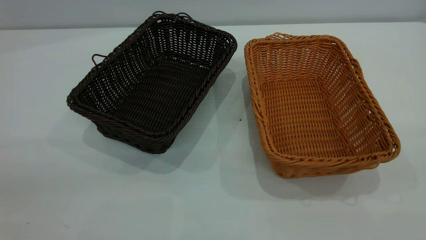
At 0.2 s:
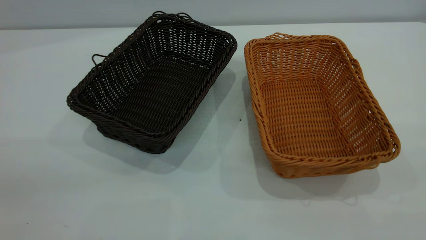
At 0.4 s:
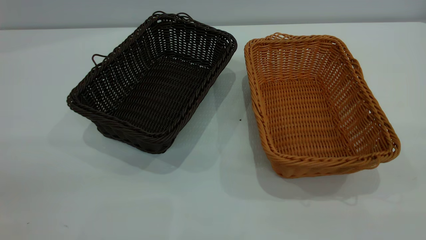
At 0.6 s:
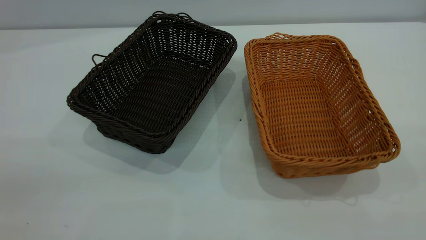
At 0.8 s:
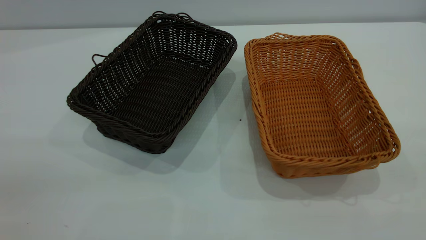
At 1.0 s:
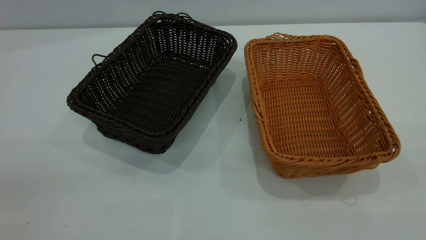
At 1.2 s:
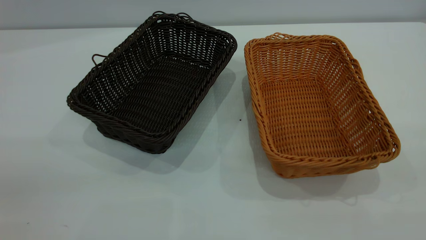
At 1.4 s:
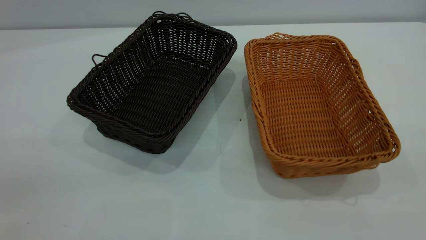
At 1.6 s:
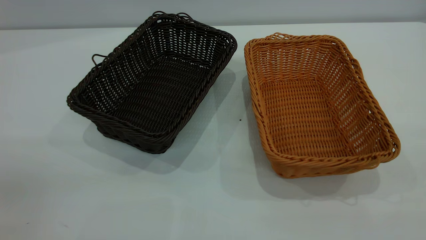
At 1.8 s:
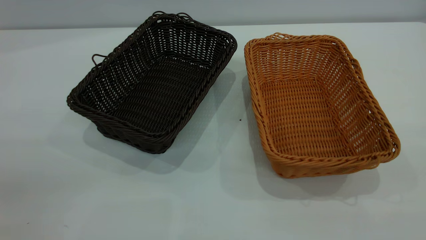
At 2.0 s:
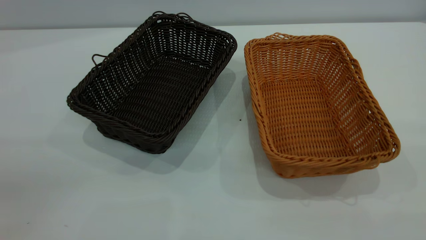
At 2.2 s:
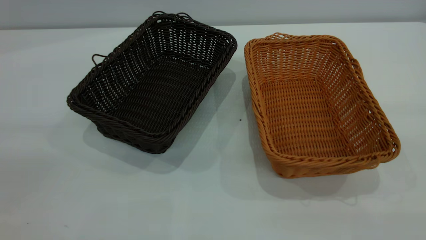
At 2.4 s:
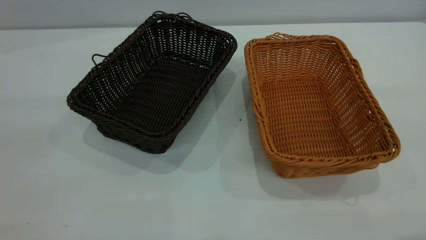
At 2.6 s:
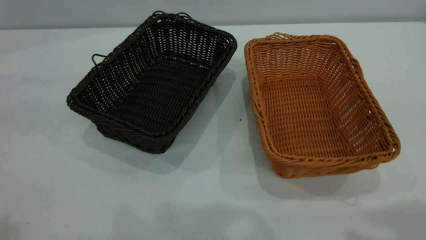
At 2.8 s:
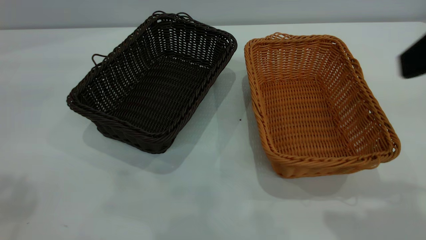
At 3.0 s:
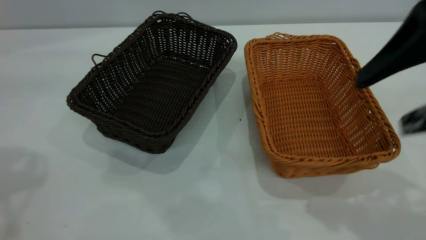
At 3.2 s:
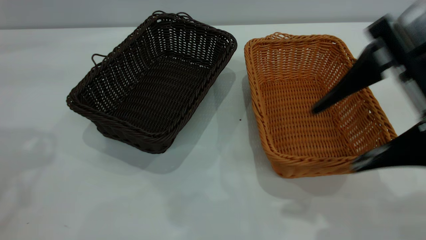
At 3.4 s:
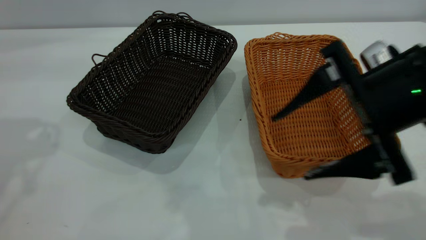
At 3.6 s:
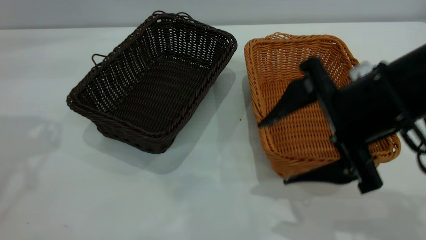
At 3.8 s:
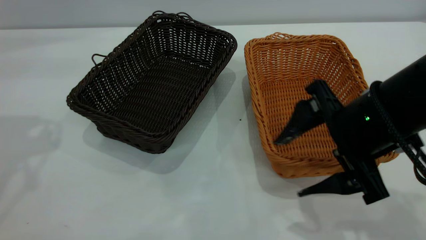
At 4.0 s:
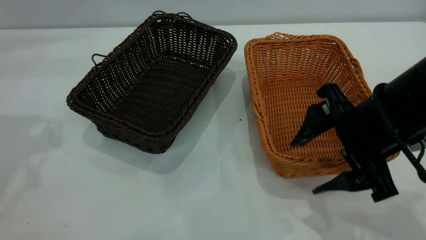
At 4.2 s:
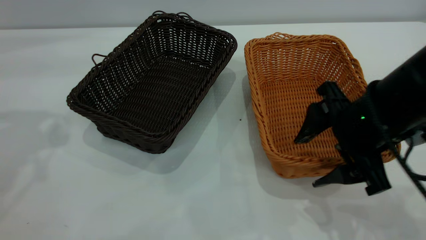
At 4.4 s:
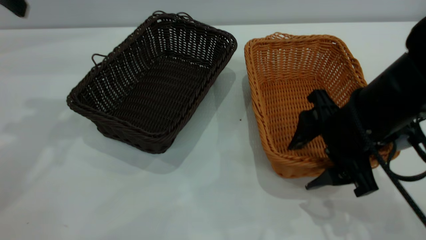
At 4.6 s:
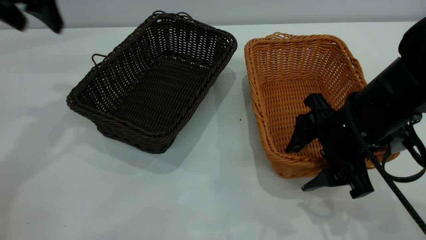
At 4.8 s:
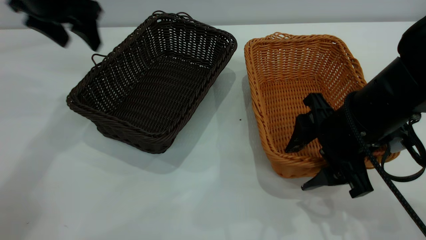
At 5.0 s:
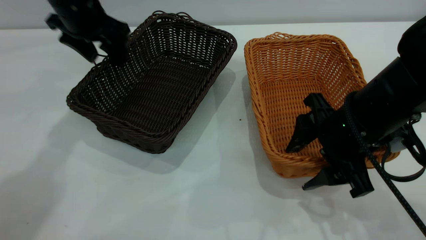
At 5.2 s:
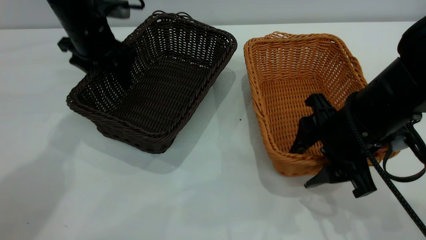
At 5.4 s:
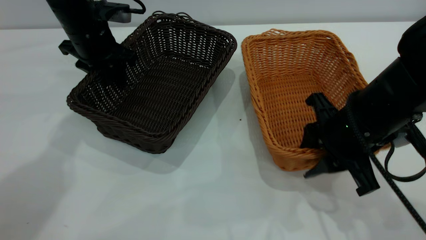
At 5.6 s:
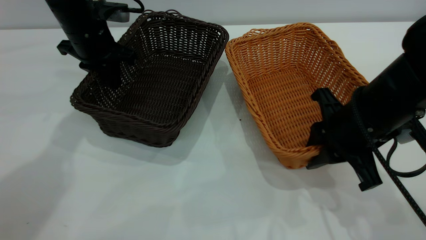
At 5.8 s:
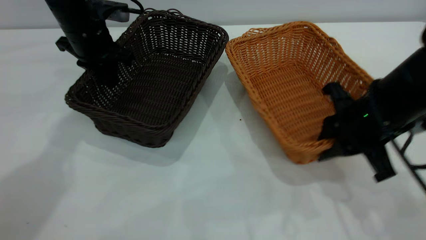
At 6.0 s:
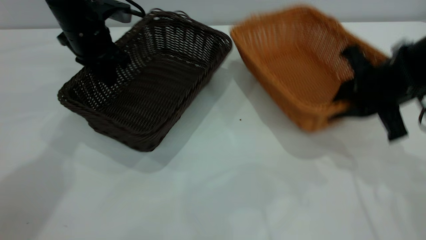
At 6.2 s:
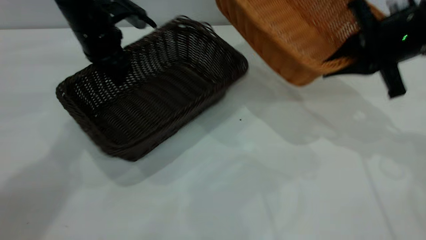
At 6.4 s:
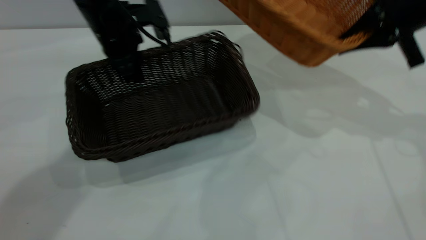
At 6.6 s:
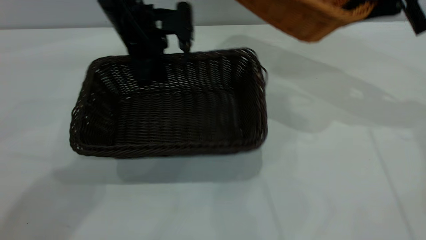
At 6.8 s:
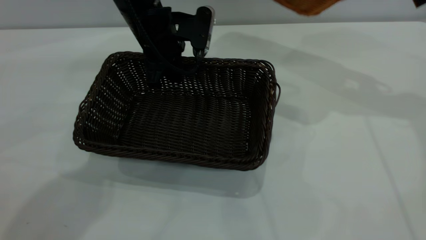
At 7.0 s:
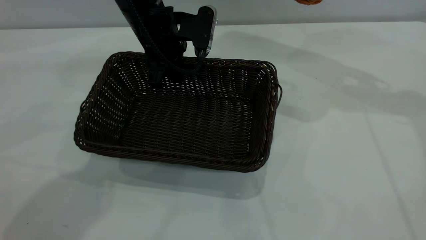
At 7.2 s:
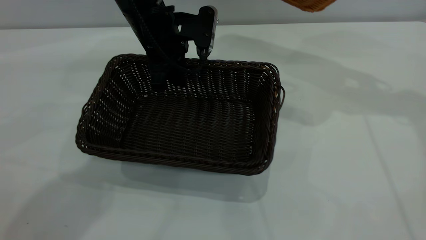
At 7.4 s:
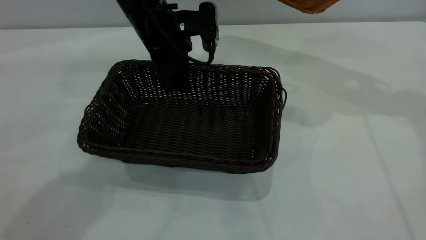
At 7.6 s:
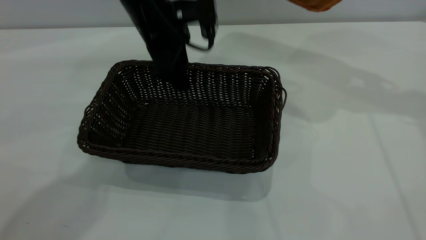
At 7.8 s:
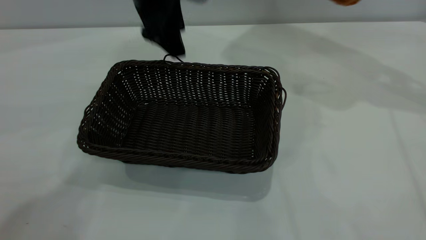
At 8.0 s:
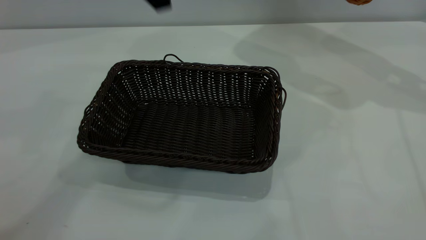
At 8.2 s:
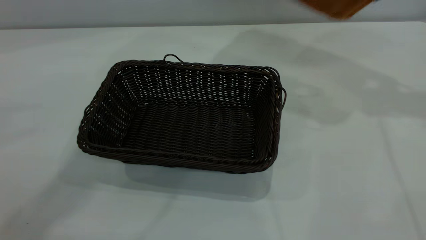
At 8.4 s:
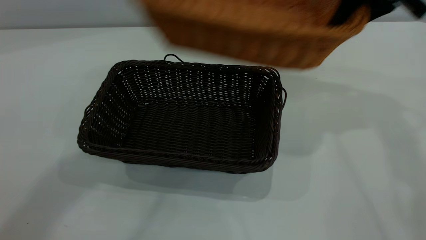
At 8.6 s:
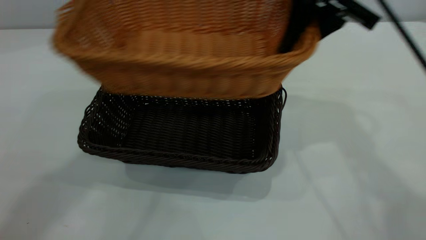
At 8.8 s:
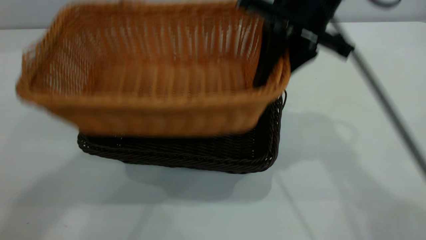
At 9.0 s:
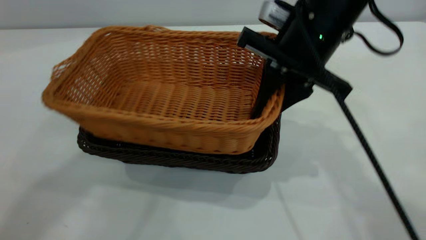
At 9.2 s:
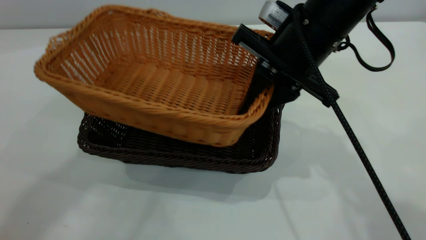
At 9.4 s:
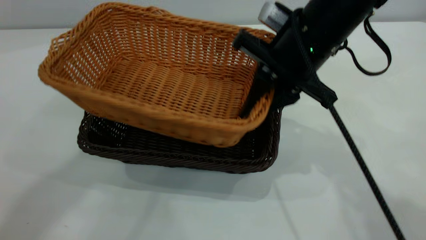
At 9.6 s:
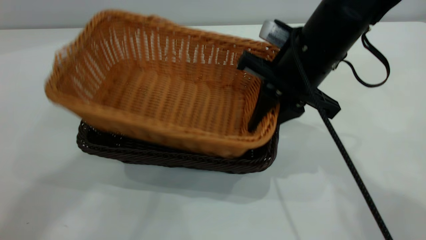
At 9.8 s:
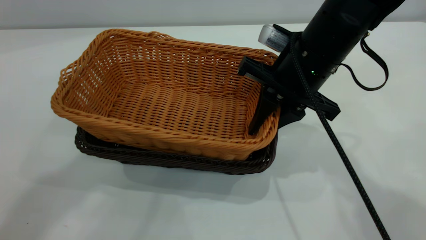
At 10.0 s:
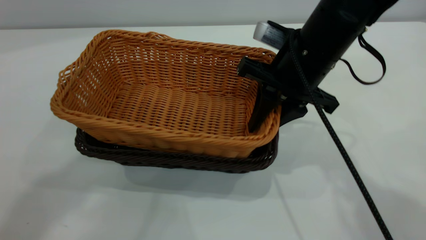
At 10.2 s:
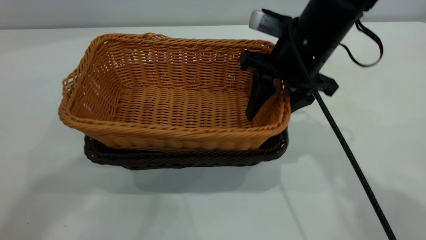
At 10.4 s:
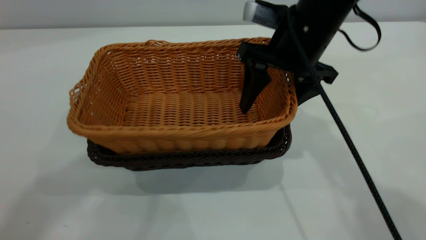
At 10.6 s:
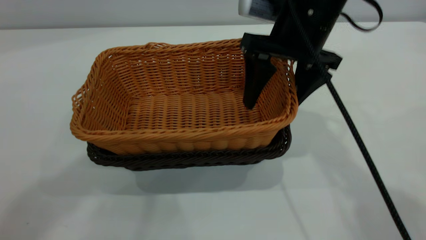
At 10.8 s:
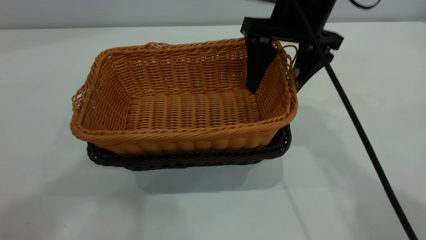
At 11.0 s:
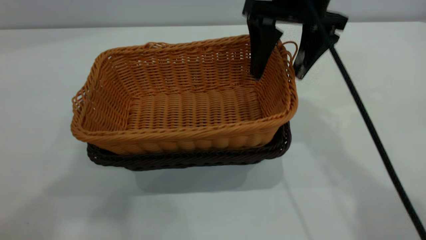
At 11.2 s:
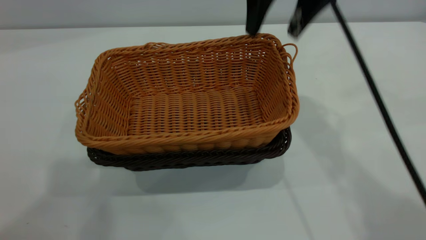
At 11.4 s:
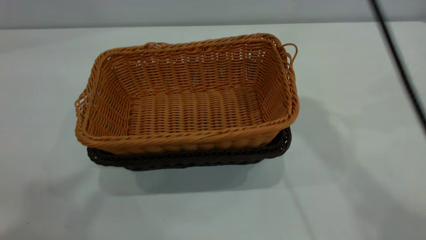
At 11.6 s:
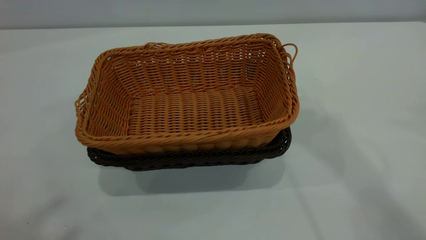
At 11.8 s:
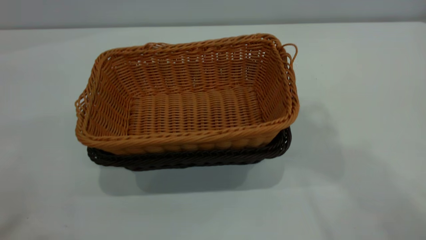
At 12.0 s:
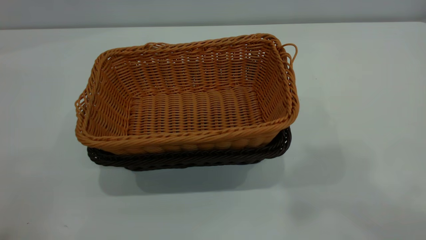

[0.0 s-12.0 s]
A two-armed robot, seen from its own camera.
Task of the whole recording: the left gripper grasp the black basket and place it in the center of the table, the right gripper grasp the brown basket and place it inside the black one.
Step, 0.0 to 6.0 s: Pick up the light basket with the right gripper.
Step, 6.2 to 7.6 s: Move the dark basket to the center of view.
Step, 8.0 to 11.2 s: Place the light basket on the dark basket.
0.0 to 1.6 s: Both grippers stay about where they are.
1.6 to 3.0 s: The right gripper heads forward and downward, covering some 20 cm.
3.0 to 4.4 s: The right gripper is displaced downward by roughly 15 cm.
4.4 to 6.0 s: The right gripper moves to the right and forward, roughly 10 cm, and closes its fingers, while the left gripper is displaced downward, forward and to the right by about 20 cm, and closes its fingers.
6.0 to 7.6 s: The right gripper heads upward and forward, covering roughly 15 cm; the left gripper shifts approximately 10 cm to the right, and opens.
7.6 to 9.0 s: The right gripper shifts about 25 cm to the left, backward and downward; the left gripper goes some 35 cm upward.
9.0 to 10.4 s: The right gripper opens up.
10.4 to 12.0 s: The left gripper goes some 25 cm backward, to the left and upward. Meanwhile the right gripper travels upward by approximately 40 cm.

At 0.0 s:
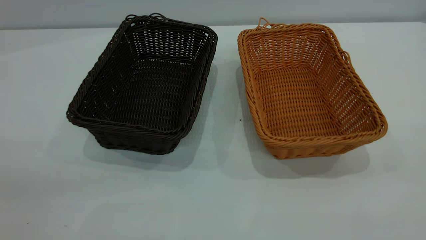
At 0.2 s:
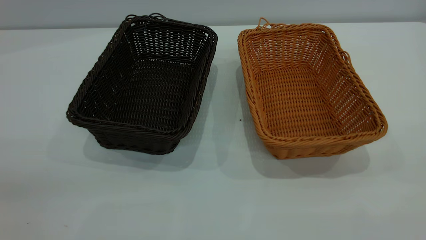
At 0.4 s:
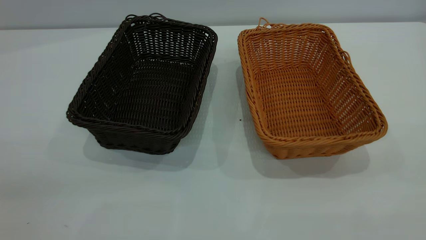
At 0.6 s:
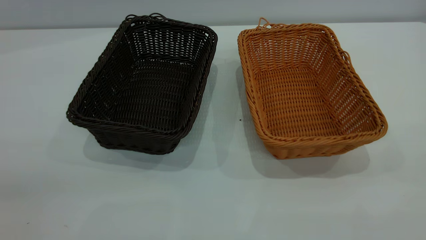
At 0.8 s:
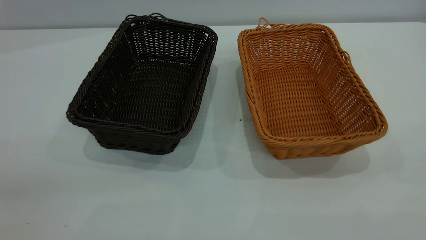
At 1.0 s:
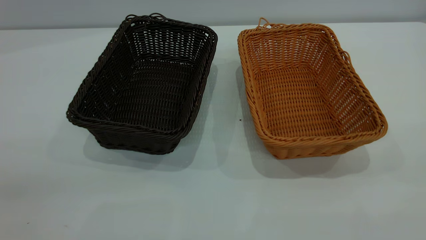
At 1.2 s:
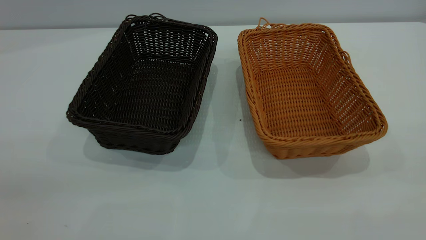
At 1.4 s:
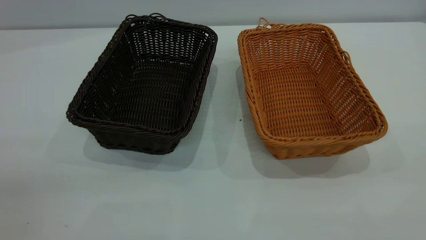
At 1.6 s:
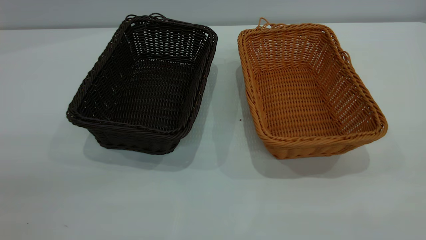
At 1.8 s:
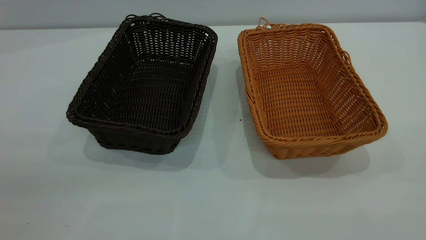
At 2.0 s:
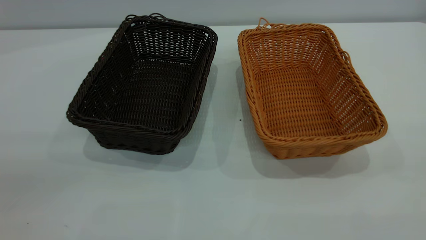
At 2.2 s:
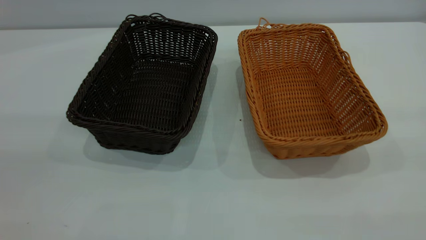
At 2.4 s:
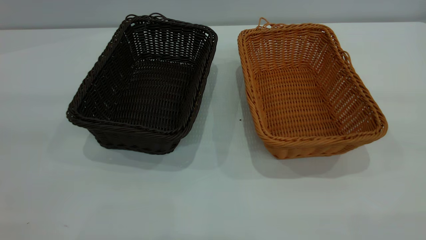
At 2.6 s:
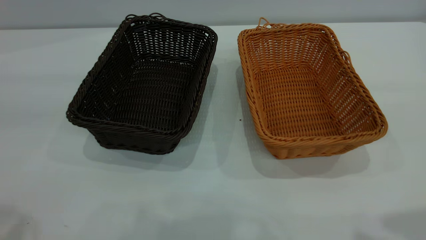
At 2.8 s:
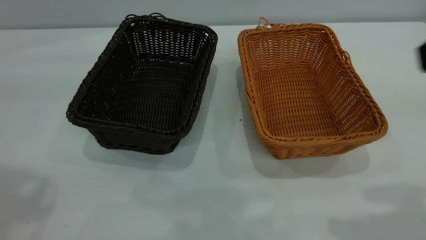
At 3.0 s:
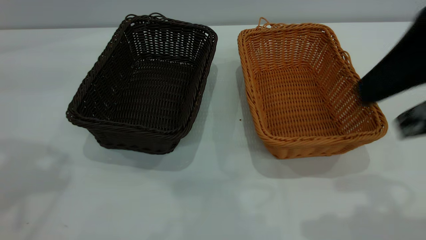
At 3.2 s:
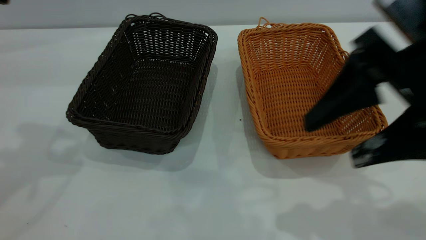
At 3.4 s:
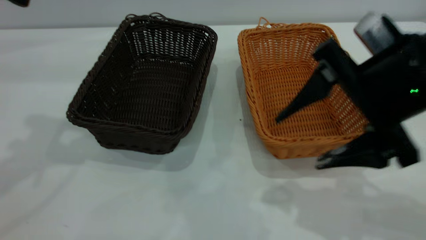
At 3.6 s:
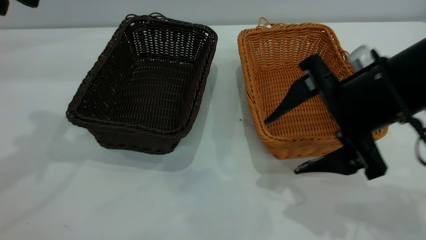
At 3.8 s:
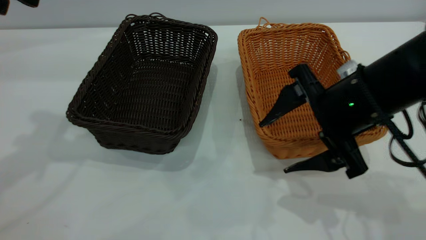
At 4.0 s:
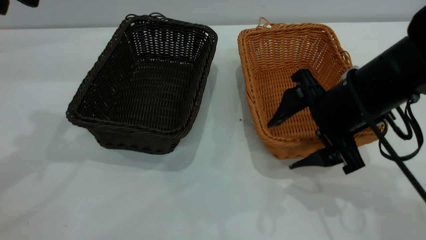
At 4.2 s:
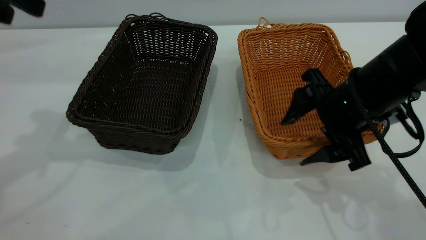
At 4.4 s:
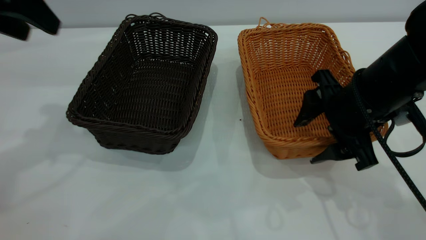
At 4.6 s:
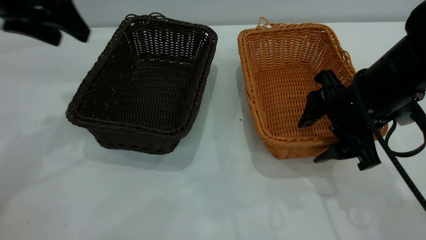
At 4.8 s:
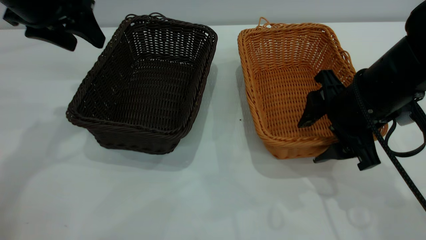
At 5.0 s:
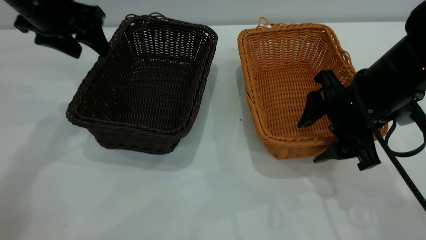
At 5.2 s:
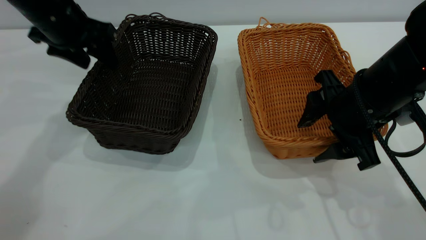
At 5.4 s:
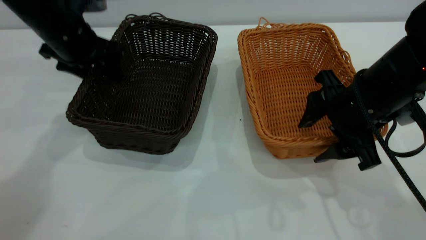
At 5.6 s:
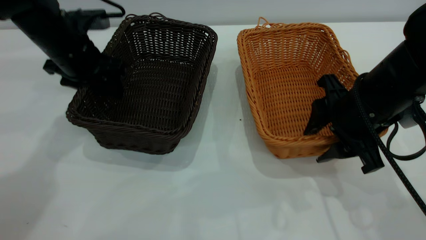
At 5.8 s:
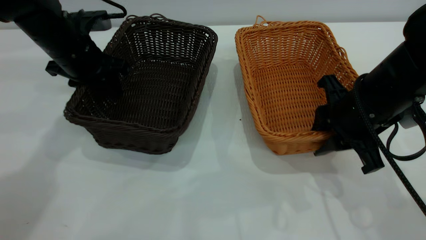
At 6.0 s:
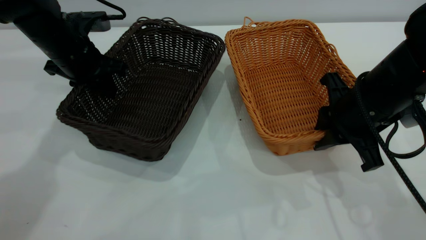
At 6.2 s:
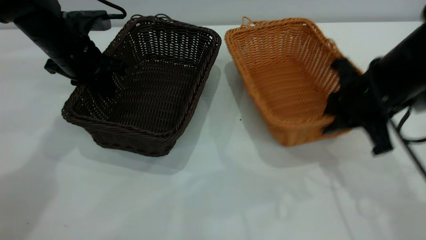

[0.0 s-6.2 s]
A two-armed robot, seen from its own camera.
Task of the whole recording: the left gripper grasp the black basket and place it in the center of the table, the right gripper grasp the brown basket and place it inside the black one.
Step, 0.0 to 6.2 s: Pick up the light basket with the right gripper.
0.0 to 1.6 s: The two grippers keep their place.
1.6 to 3.2 s: The right gripper moves forward, downward and to the left, roughly 25 cm, and opens its fingers.
3.2 to 4.6 s: Both grippers travel together downward and forward, about 15 cm.
4.6 to 6.2 s: The right gripper closes up, while the left gripper is displaced downward by about 10 cm, and closes up.
